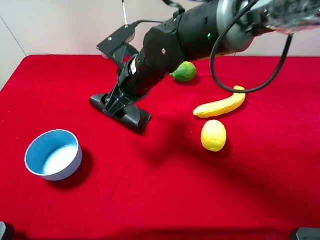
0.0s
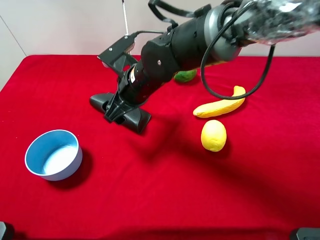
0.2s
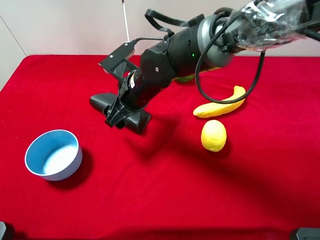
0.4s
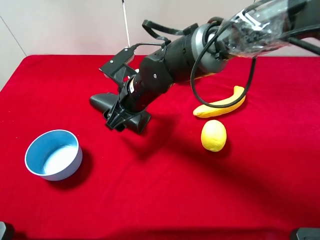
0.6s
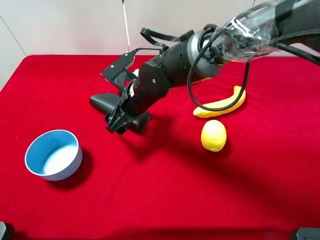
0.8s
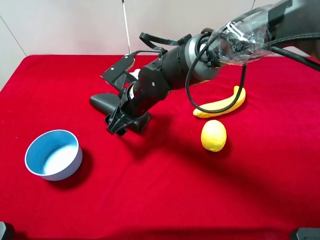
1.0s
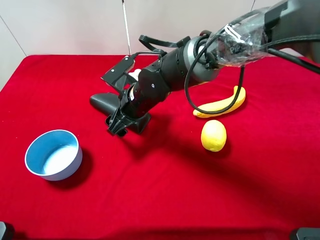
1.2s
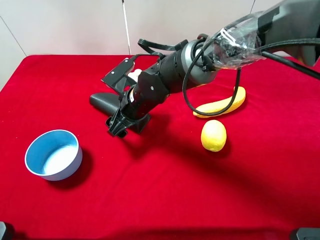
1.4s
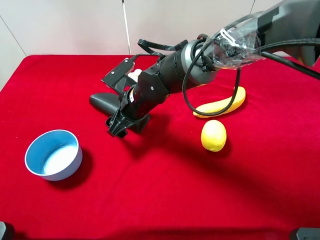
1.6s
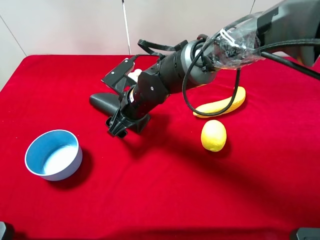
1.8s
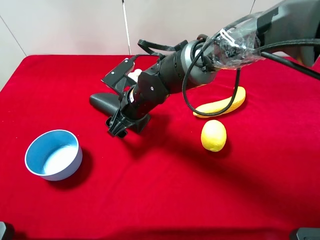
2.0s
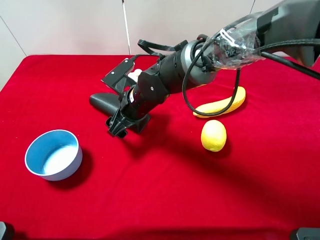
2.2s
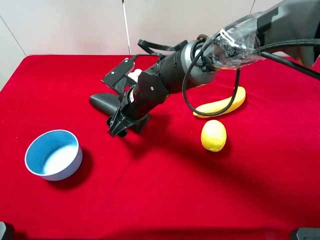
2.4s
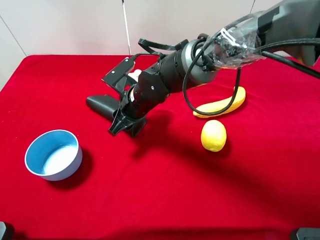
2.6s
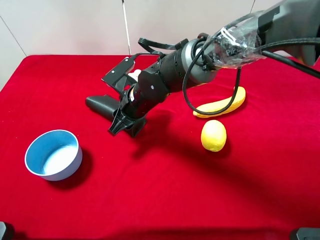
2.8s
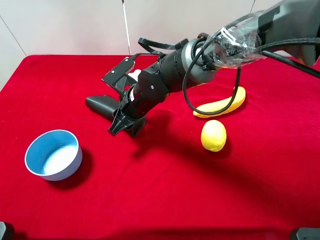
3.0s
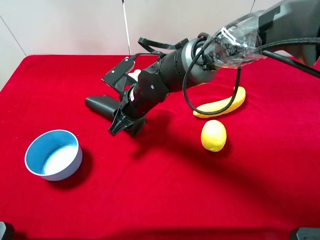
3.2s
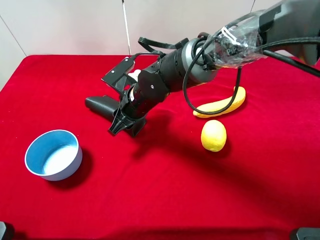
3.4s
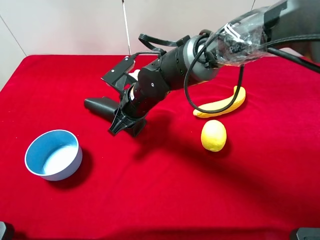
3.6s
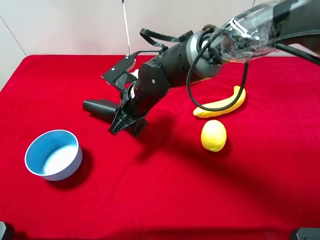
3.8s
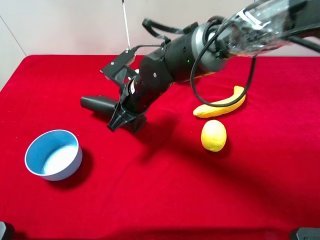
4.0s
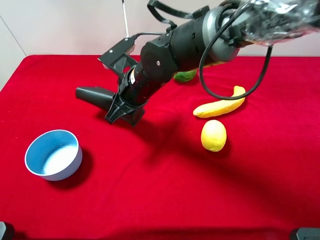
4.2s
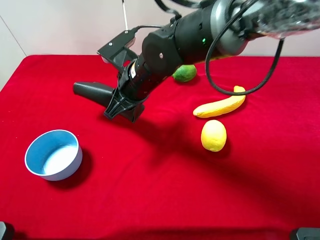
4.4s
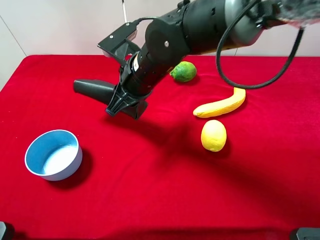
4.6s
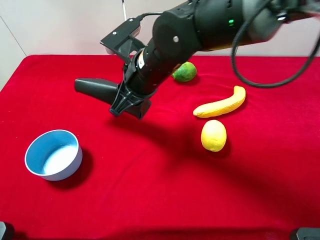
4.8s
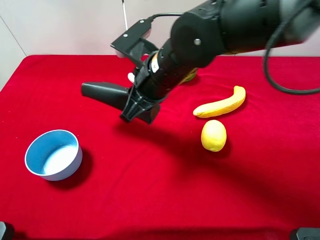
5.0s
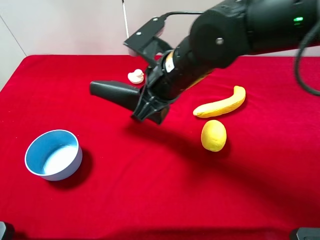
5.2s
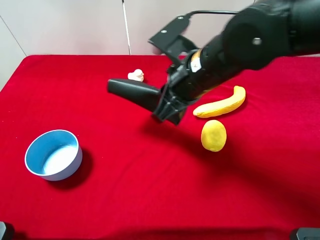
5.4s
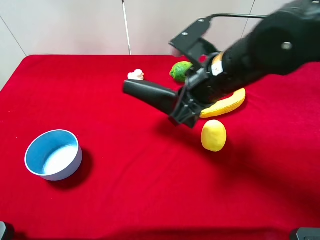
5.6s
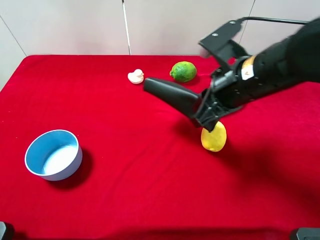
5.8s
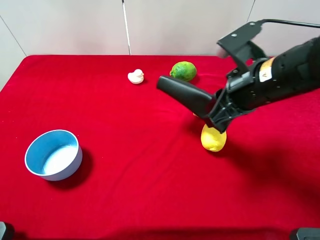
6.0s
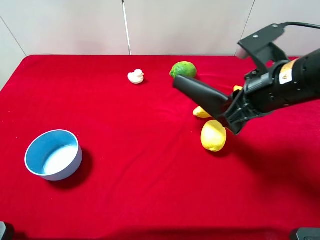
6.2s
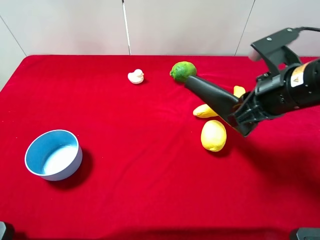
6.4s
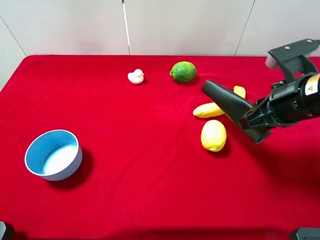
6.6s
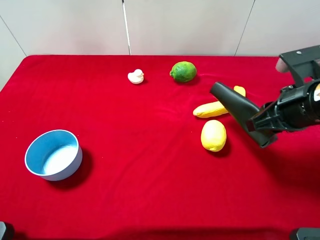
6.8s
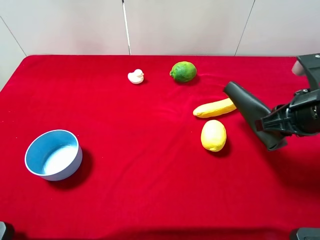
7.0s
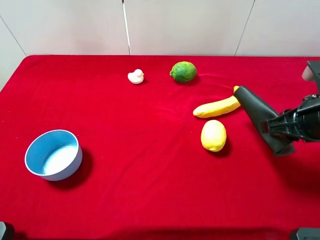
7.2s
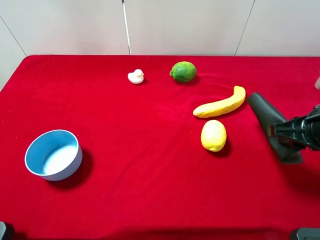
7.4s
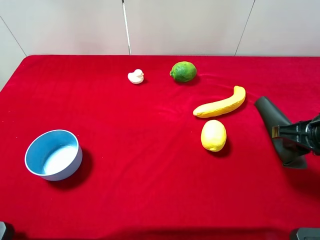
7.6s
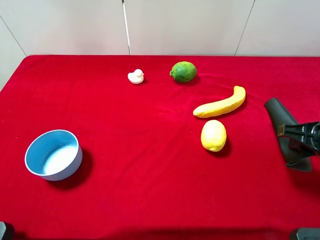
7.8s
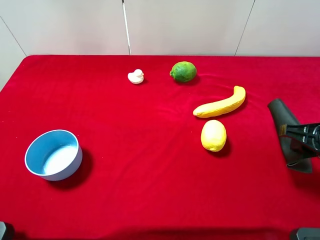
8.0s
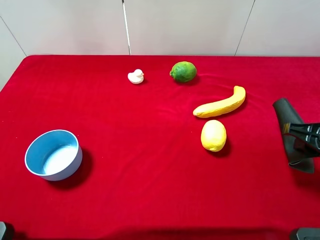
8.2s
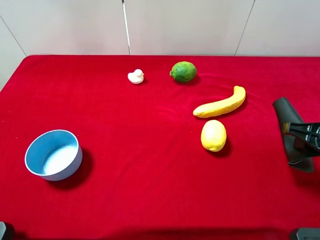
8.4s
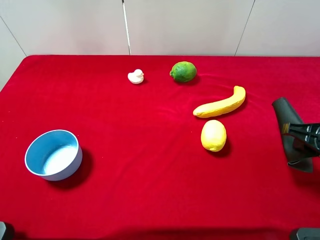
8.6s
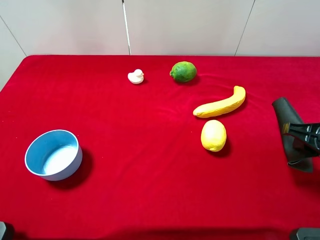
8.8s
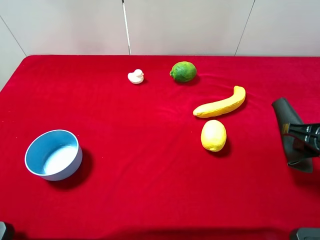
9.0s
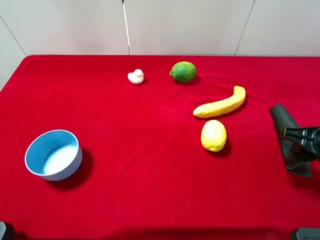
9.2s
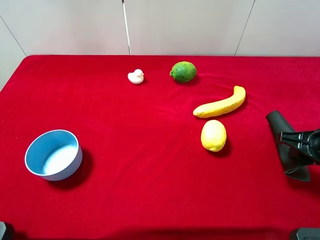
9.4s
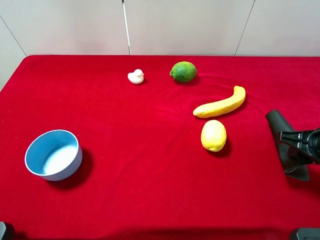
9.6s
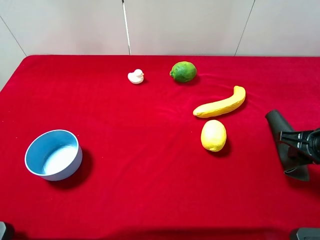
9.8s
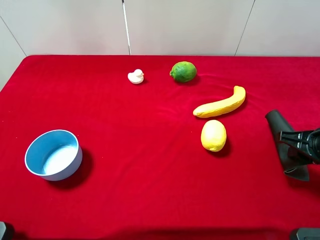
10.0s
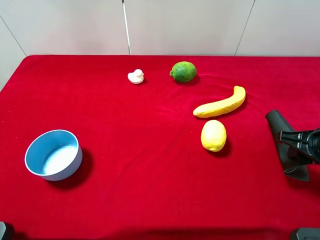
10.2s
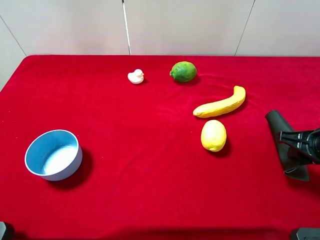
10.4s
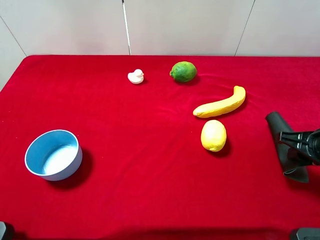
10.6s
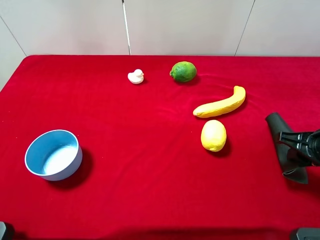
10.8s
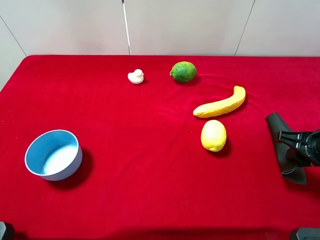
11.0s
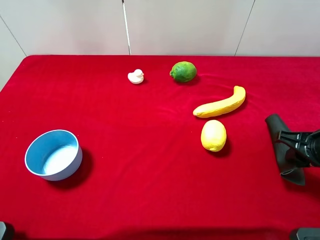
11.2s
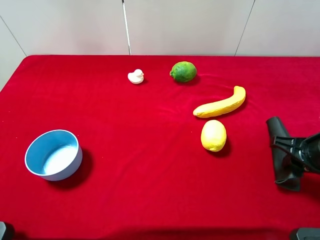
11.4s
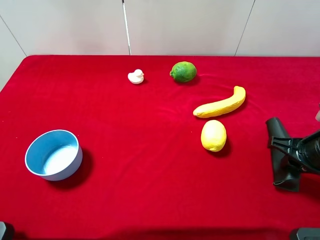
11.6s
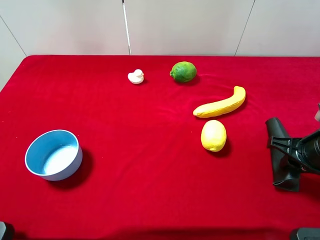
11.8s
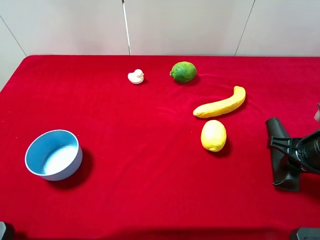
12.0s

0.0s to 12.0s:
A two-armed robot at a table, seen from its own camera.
Task of the whole recording: the gripper move the object.
Step, 0.0s to 2.6s: Grasp the eyeglass case with the right gripper.
0.0s to 1.6s: The right gripper heads downward, covering approximately 5 cm.
1.6s to 3.0s: The right gripper closes.
3.0s to 4.4s: The right gripper moves upward, roughly 5 cm.
4.4s to 6.0s: The right gripper goes some 20 cm to the right.
6.0s to 7.6s: The right gripper goes some 10 cm to the right.
7.6s to 12.0s: The grippers make only small movements.

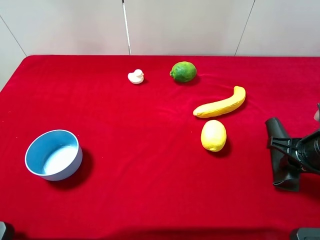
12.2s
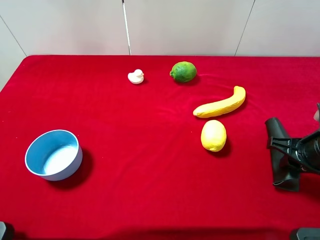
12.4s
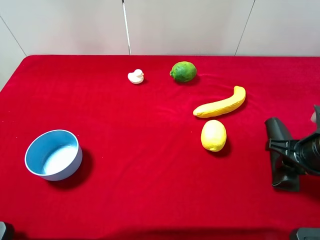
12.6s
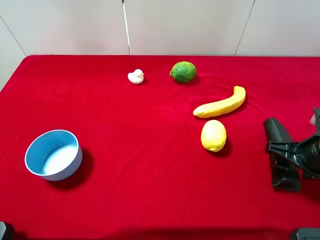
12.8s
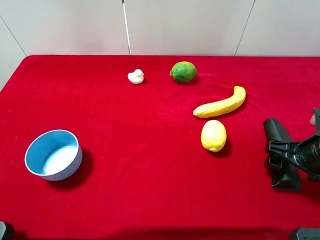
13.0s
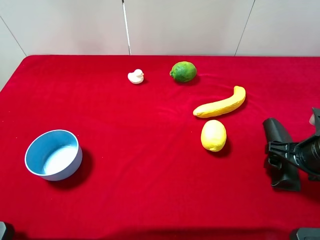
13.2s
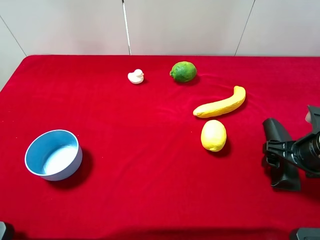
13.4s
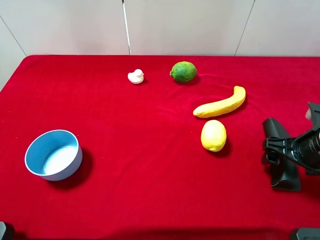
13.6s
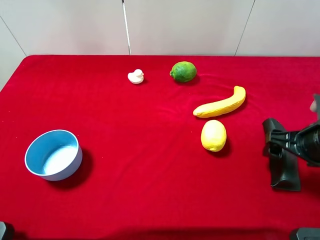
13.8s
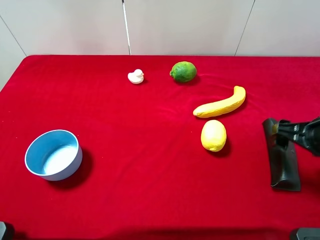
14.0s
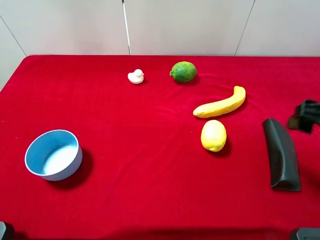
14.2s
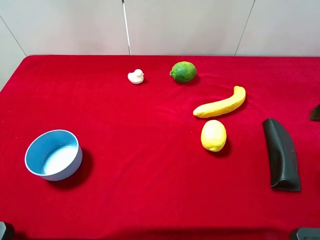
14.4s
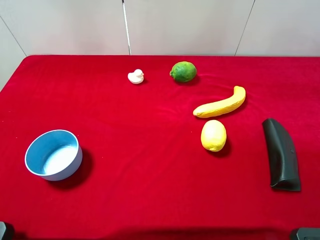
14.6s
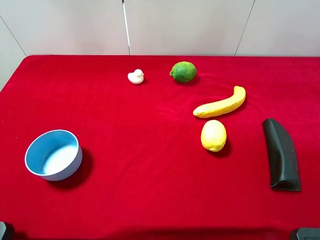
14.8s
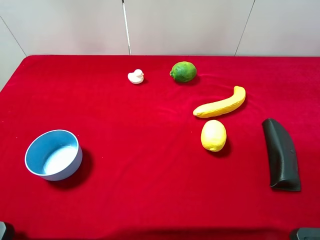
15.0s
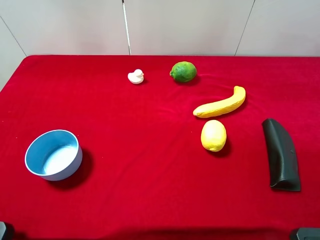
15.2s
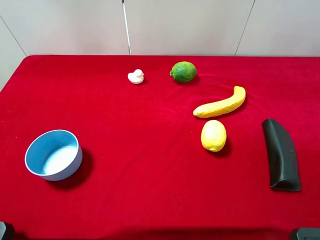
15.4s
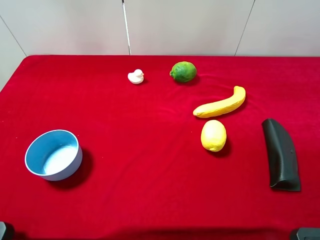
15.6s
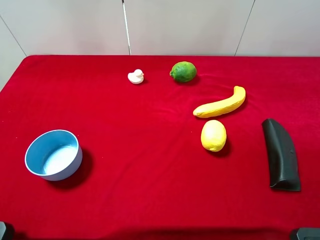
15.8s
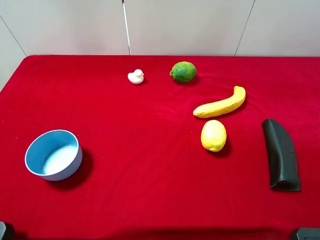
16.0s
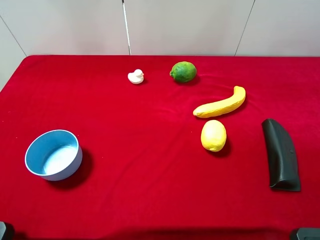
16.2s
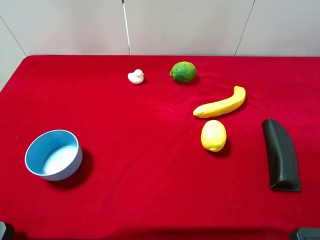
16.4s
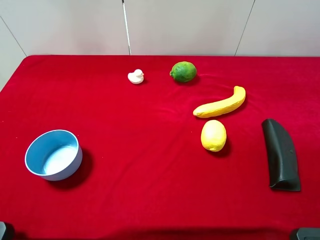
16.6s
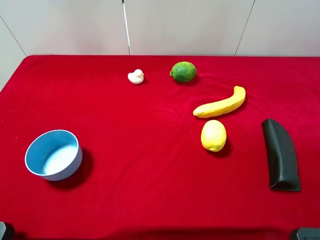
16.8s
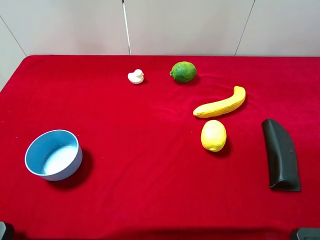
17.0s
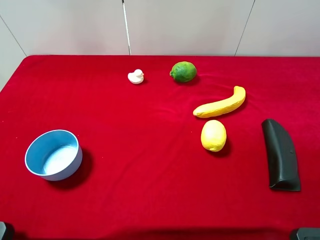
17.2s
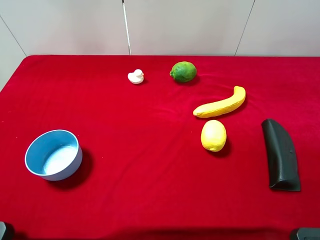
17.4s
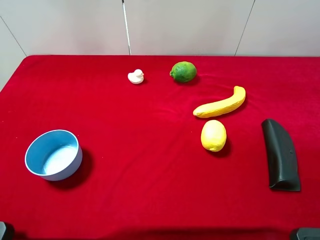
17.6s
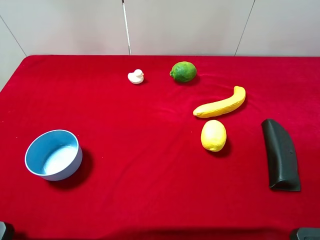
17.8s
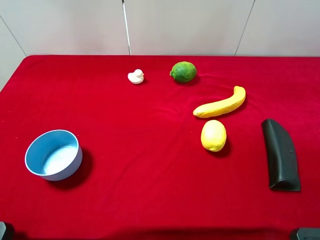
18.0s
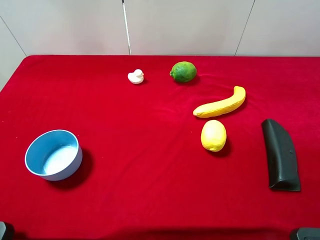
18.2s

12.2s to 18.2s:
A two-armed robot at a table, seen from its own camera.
Task of the whole recording: the gripper move the object.
Step, 12.2s to 14.2s: Place the eyeglass case on the table with the right gripper.
12.2s to 13.8s: The right gripper opens its fingers.
13.8s to 15.2s: The right gripper travels upward and backward by approximately 20 cm.
16.6s to 18.2s: The two grippers keep their place.

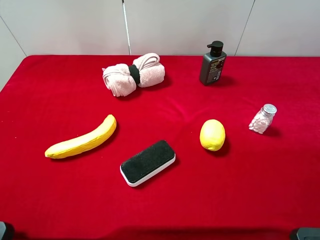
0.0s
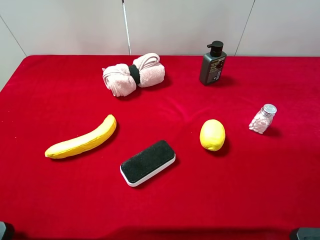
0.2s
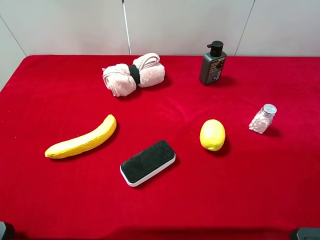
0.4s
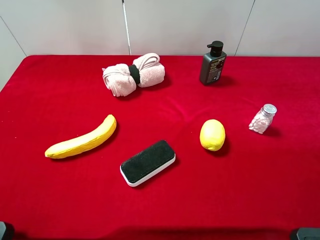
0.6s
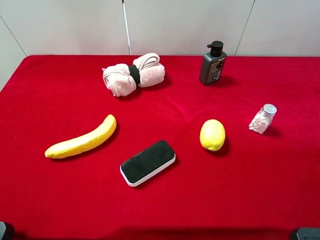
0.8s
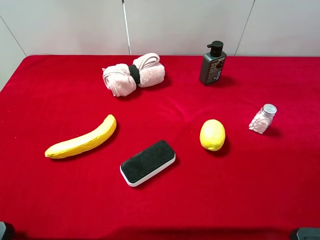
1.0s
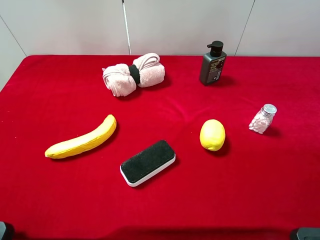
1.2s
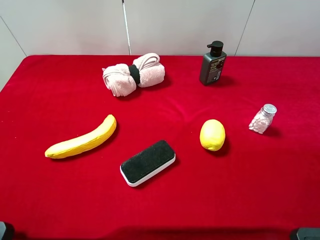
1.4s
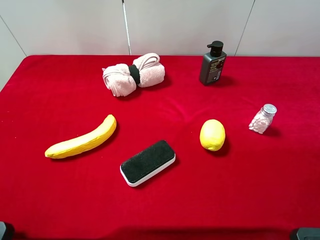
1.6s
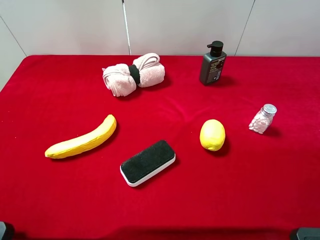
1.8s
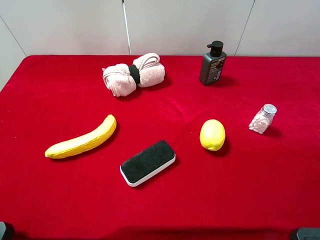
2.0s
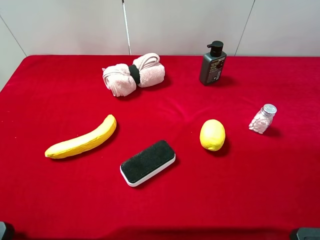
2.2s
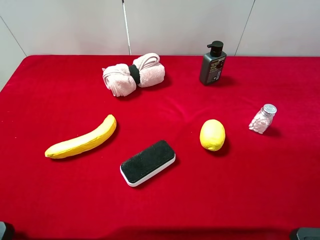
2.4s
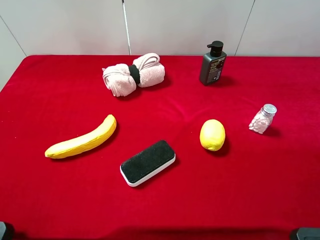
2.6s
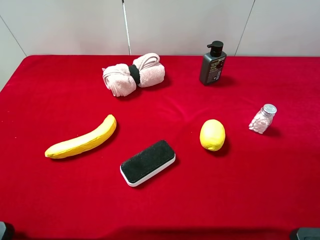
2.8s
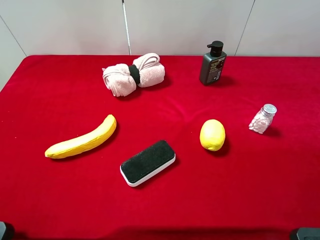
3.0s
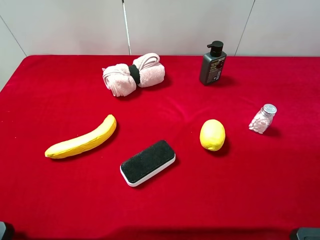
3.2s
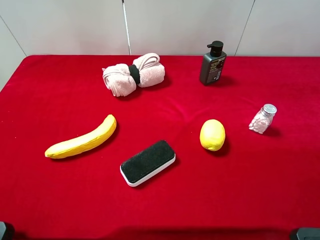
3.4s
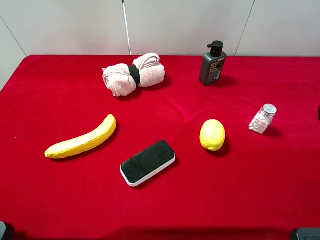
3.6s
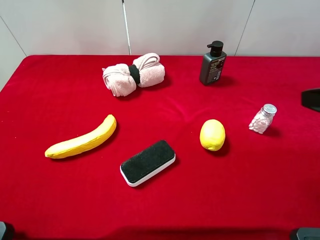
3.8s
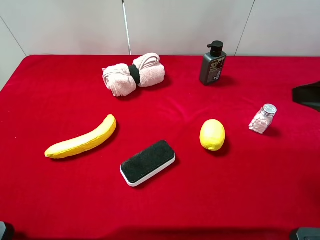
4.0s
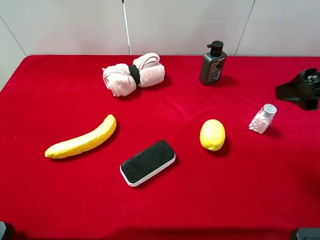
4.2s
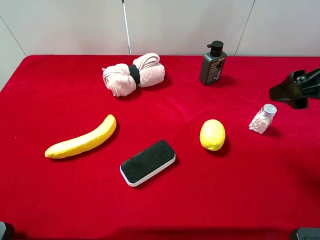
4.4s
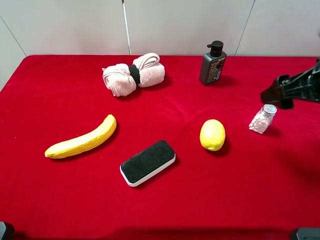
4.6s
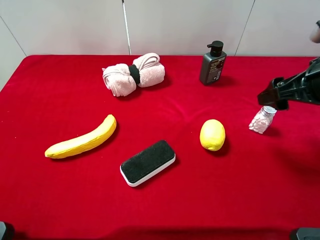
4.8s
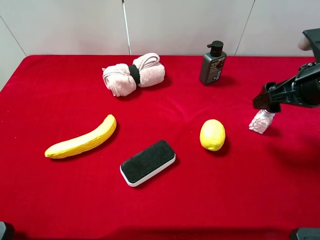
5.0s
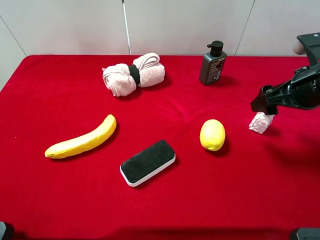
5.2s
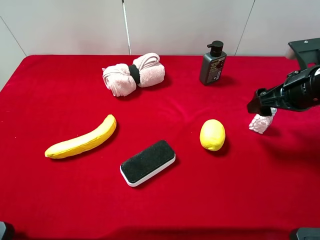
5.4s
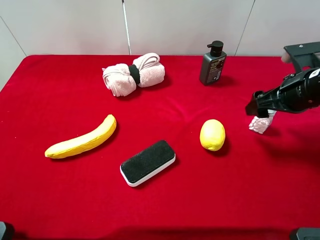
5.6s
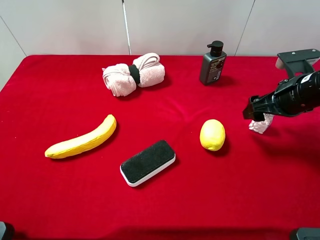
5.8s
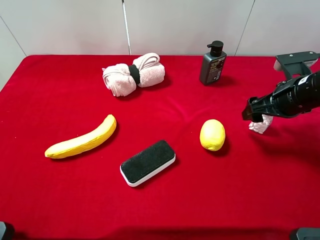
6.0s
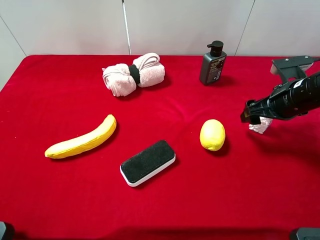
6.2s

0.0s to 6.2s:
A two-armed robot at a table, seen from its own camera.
Task of the whole recording: the gripper move the object.
0.0s to 1.6s: The two grippers keep their place.
3.2s to 4.6s: The right gripper heads forward, covering roughly 20 cm.
4.6s to 6.2s: The right gripper travels downward and forward by about 10 cm.
